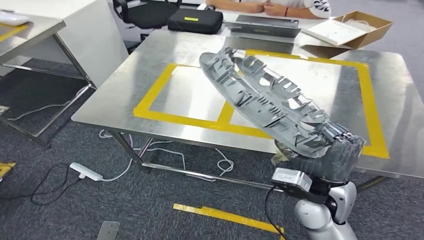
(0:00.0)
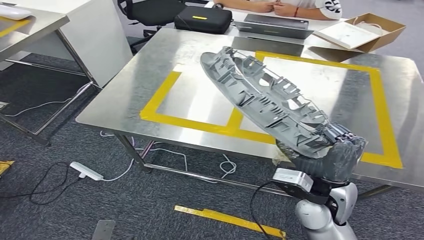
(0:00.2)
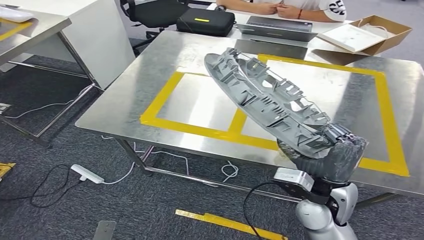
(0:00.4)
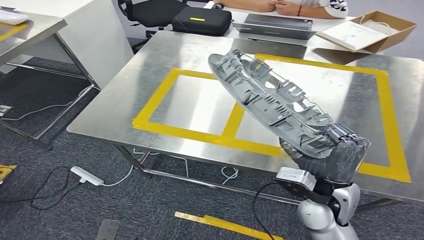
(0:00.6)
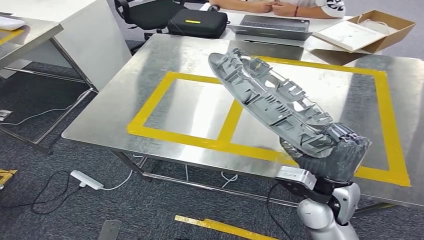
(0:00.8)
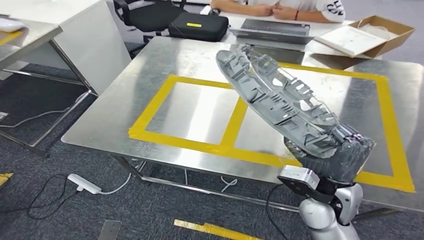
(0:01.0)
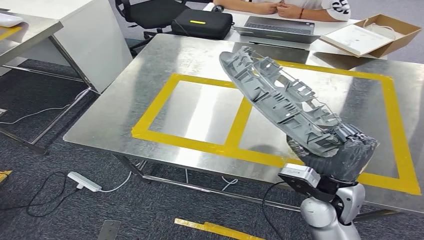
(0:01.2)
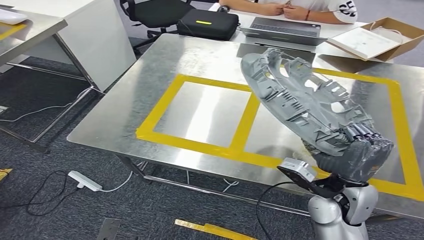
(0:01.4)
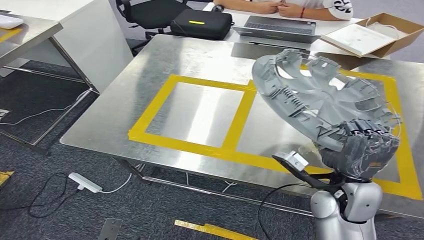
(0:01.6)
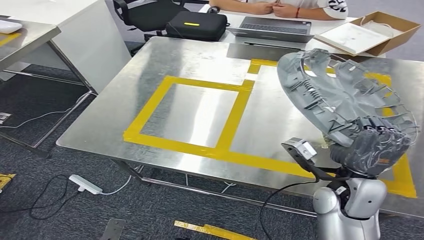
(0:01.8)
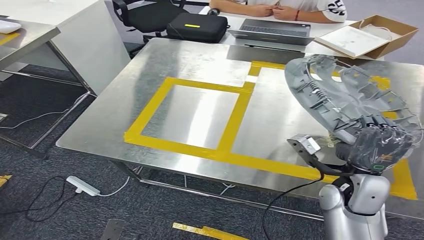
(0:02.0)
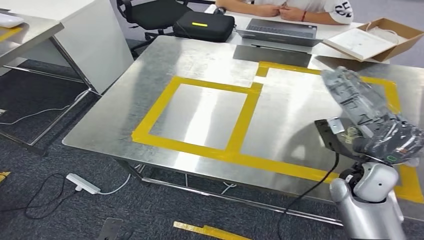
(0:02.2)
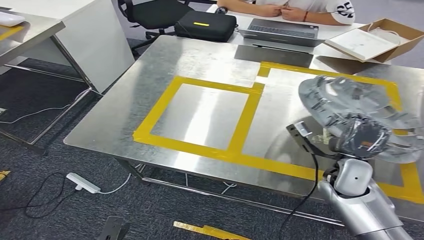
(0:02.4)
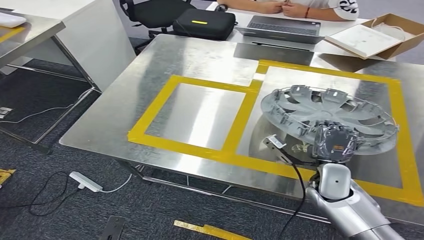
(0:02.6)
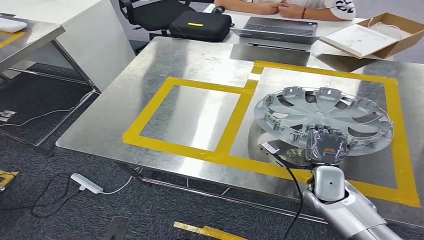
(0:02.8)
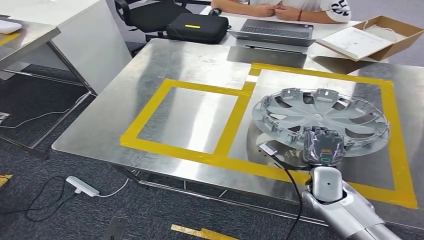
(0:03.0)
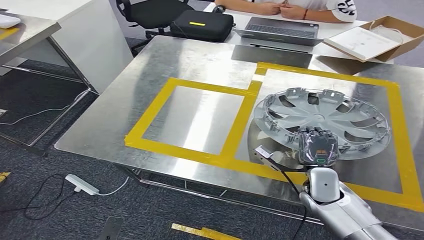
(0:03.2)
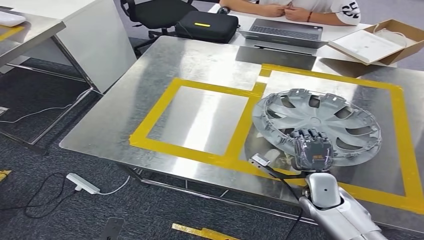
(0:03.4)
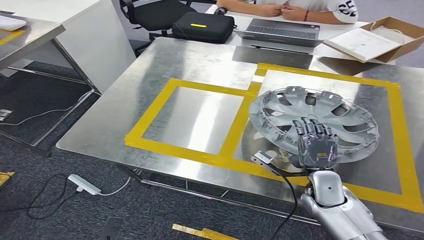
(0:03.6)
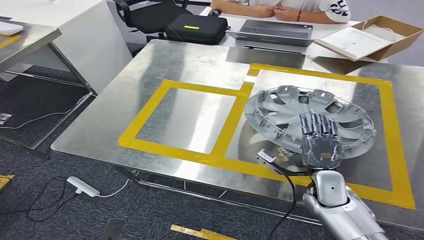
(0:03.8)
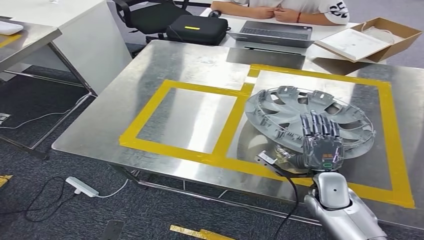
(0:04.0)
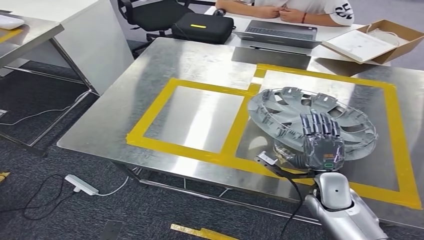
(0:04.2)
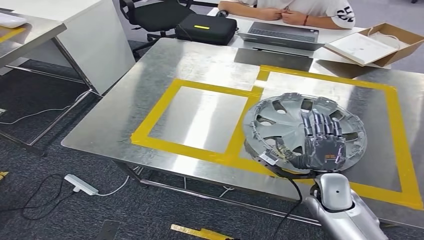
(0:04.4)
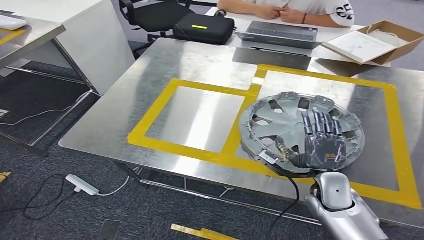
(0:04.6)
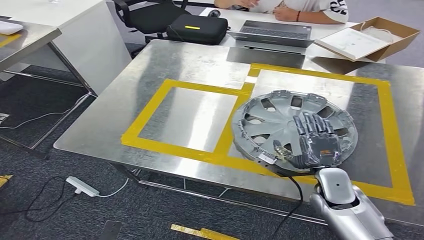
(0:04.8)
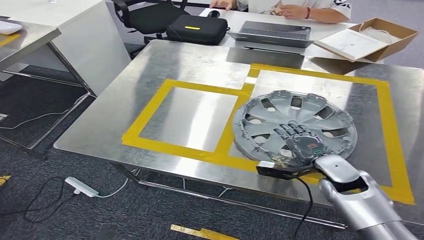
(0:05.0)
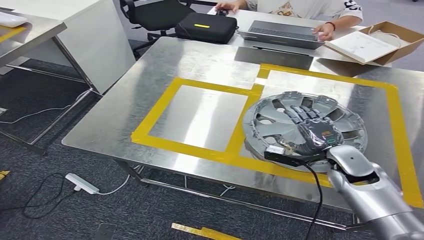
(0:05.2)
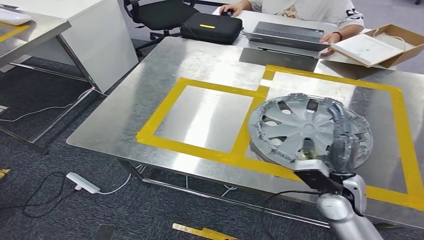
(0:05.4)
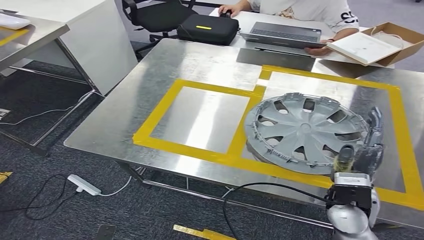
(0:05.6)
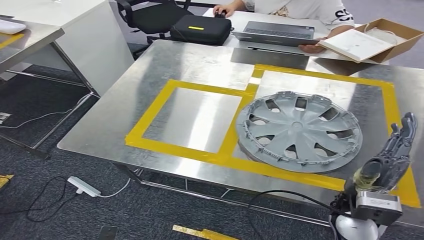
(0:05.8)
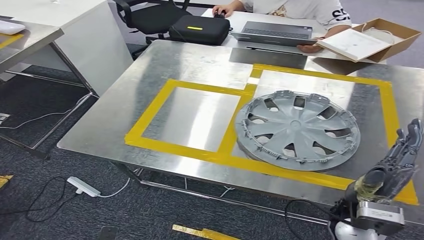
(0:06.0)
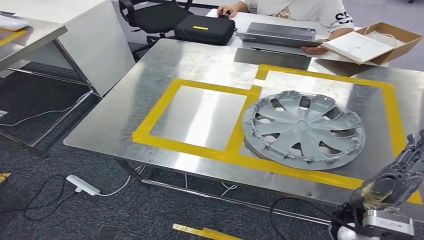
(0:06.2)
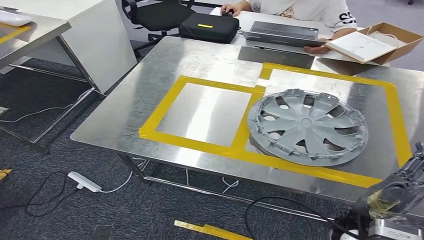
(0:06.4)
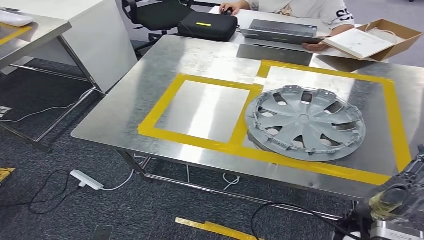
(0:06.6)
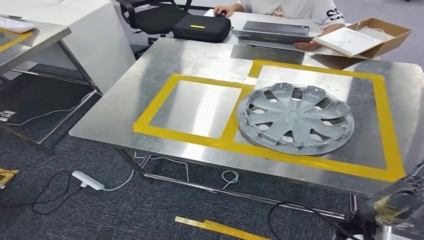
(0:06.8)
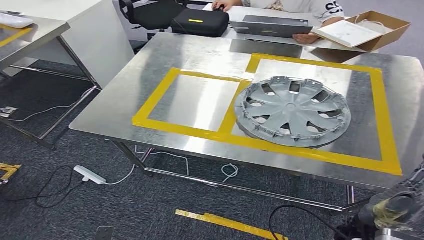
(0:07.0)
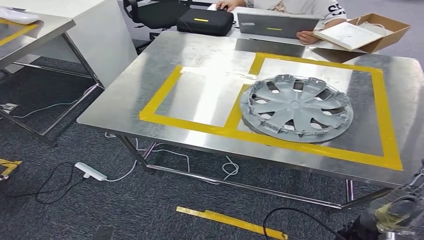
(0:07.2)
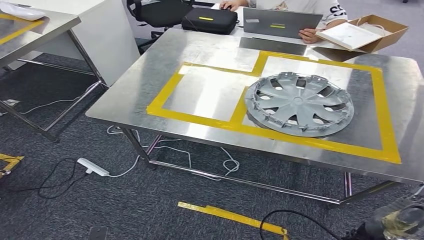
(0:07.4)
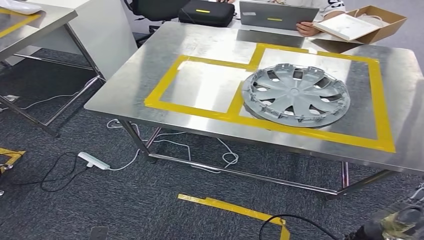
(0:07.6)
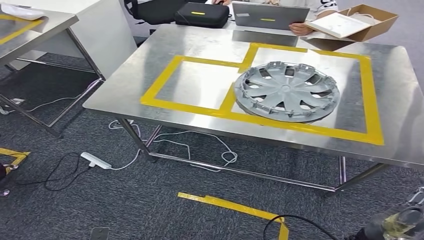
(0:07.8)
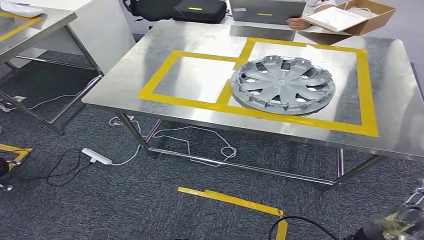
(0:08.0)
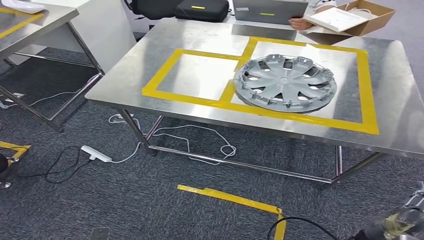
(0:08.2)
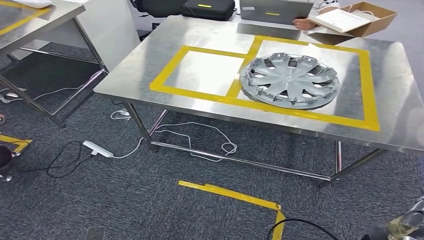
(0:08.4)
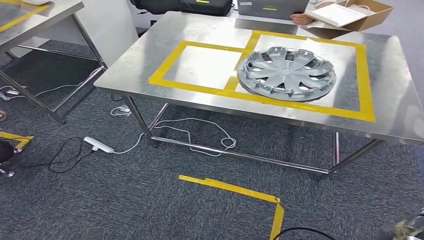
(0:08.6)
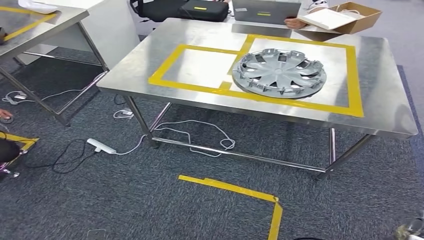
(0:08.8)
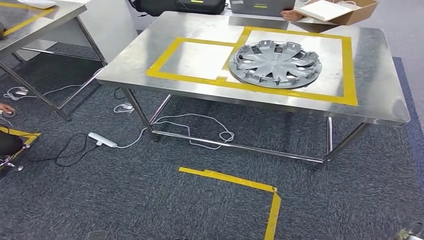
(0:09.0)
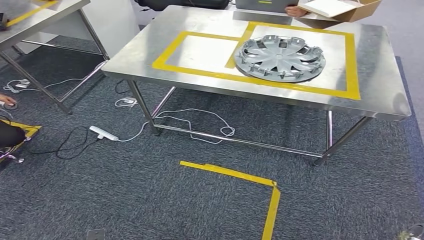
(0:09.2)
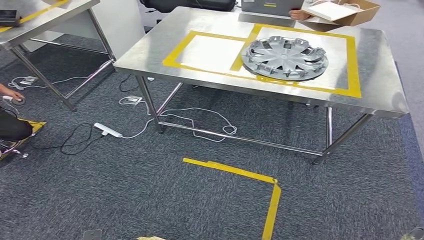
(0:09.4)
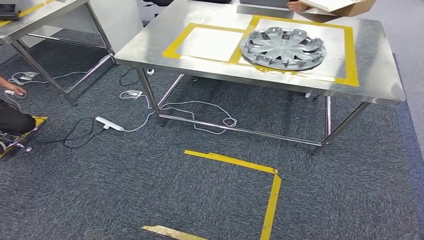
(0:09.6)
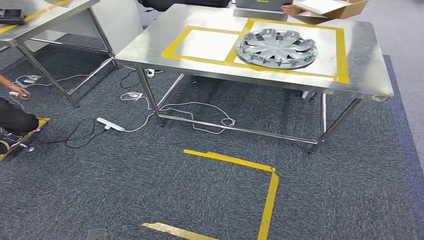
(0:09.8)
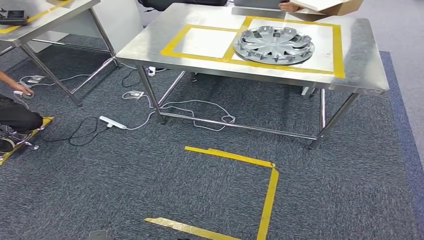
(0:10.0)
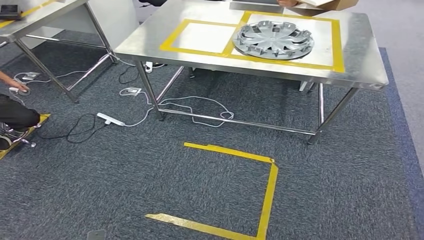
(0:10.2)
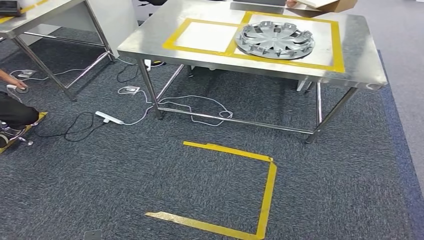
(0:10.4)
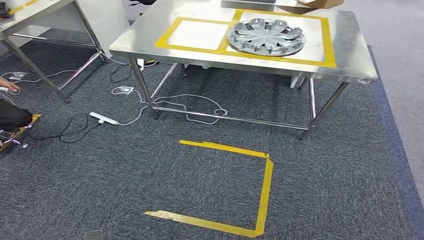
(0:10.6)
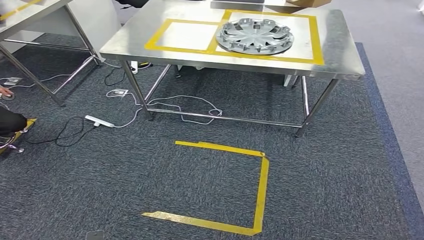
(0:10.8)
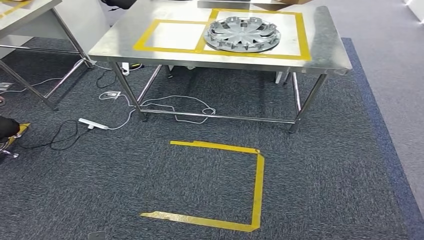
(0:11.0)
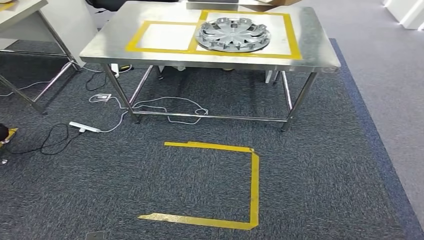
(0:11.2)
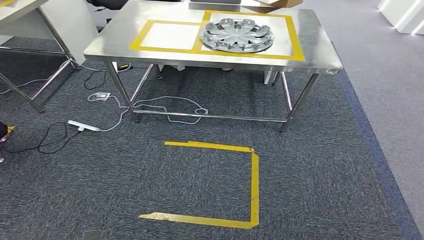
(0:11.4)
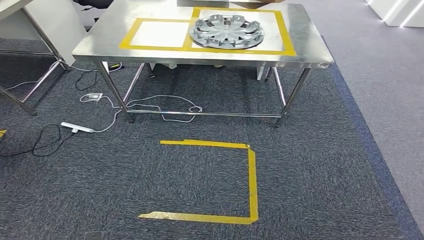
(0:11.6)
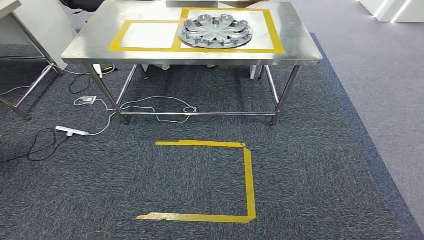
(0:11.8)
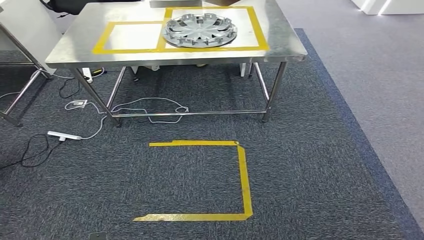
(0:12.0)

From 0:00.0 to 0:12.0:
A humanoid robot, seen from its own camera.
Step, from 0:00.0 to 0:07.0: Insert the small component into the corresponding slot on the workbench.

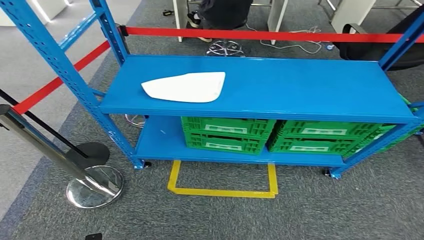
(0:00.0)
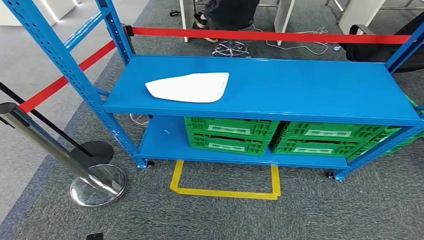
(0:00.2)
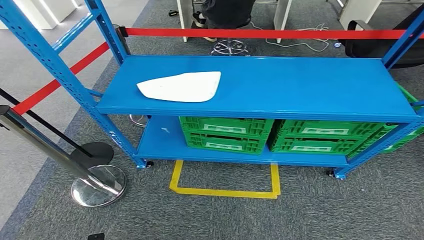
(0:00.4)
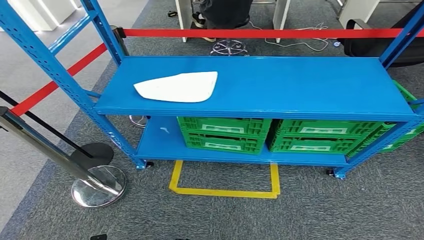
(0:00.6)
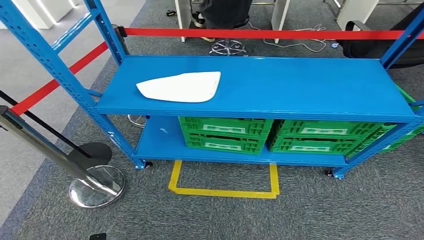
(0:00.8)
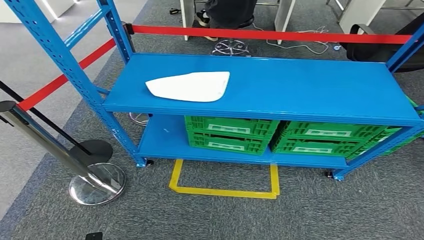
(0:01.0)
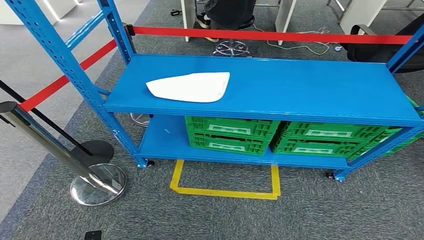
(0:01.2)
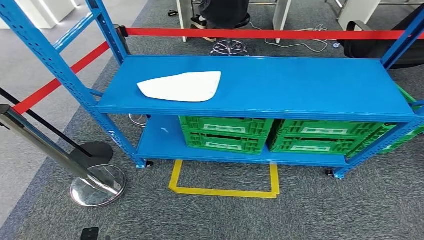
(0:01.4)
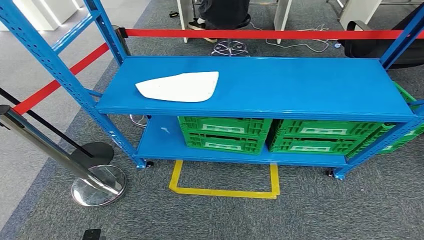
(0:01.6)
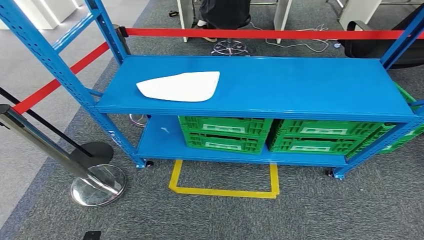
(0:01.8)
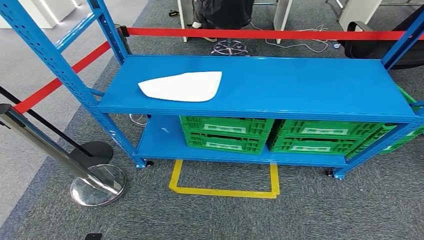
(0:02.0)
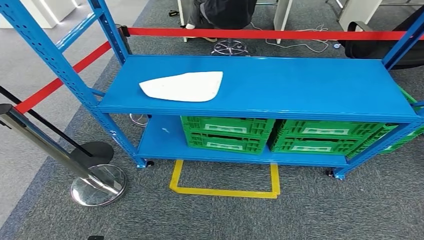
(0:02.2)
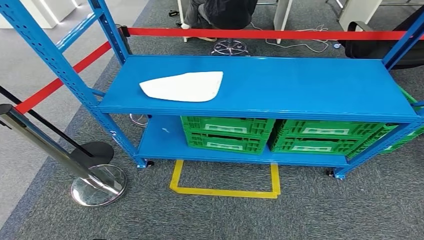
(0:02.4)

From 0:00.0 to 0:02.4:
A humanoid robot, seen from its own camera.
Step, from 0:00.0 to 0:02.4: Move to the initial position at the workbench.
From 0:00.0 to 0:01.2: There are only small adjustments of the hands.
From 0:01.2 to 0:02.4: There are only small adjustments of the hands.
